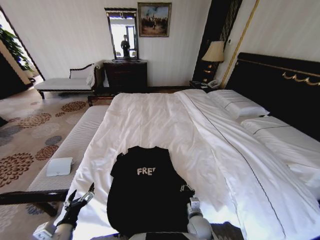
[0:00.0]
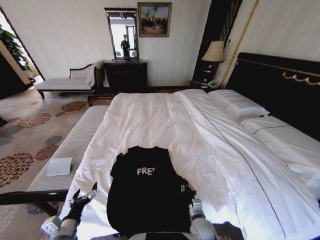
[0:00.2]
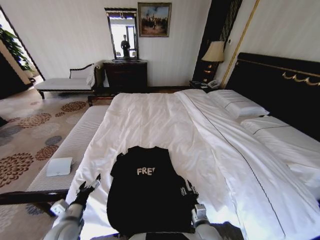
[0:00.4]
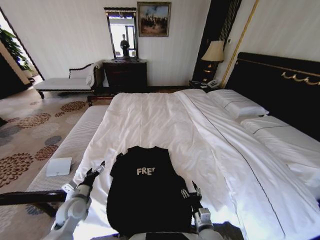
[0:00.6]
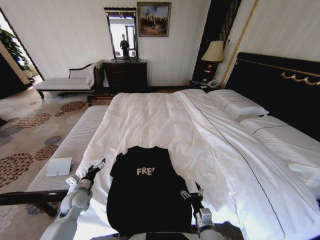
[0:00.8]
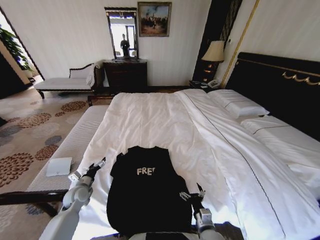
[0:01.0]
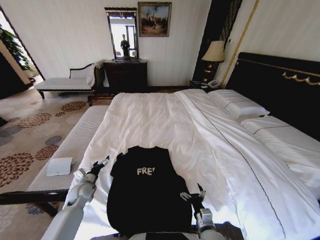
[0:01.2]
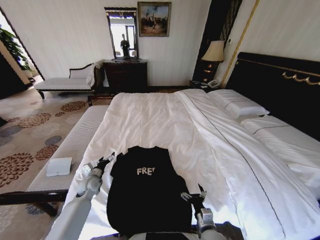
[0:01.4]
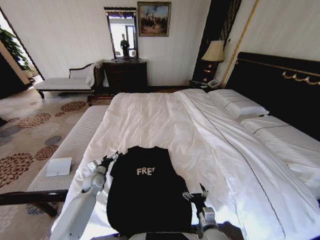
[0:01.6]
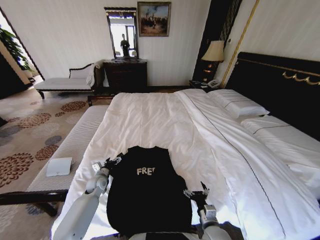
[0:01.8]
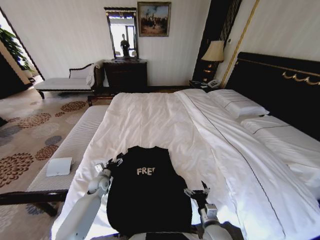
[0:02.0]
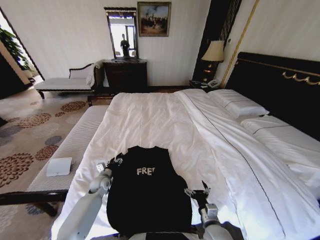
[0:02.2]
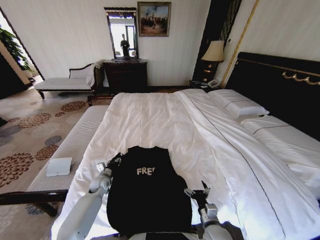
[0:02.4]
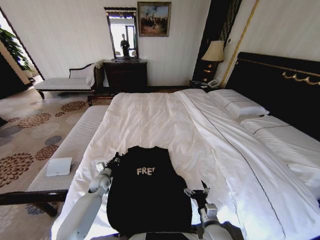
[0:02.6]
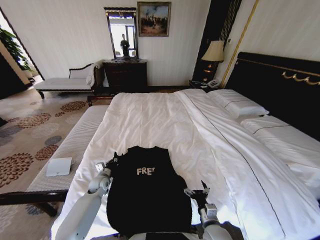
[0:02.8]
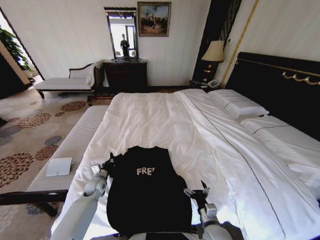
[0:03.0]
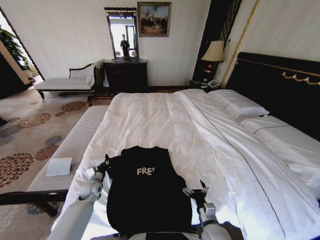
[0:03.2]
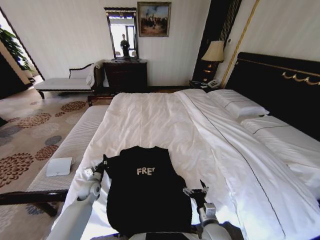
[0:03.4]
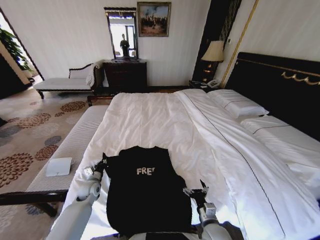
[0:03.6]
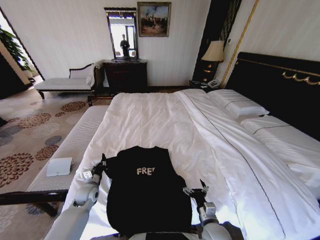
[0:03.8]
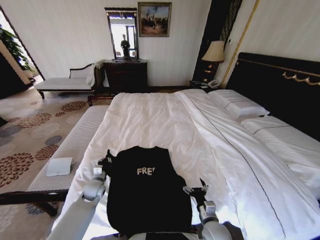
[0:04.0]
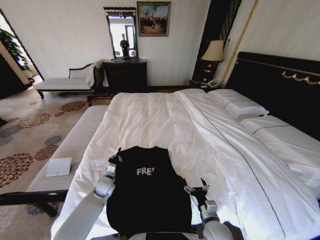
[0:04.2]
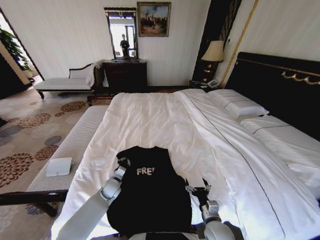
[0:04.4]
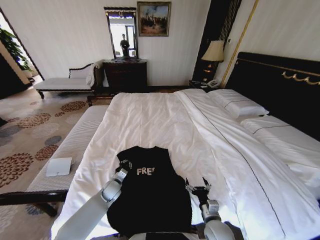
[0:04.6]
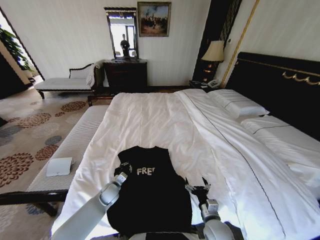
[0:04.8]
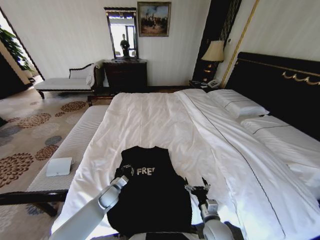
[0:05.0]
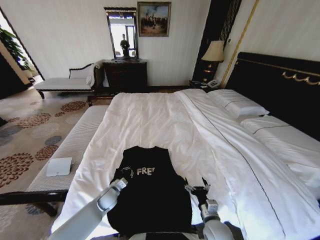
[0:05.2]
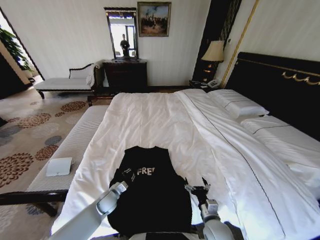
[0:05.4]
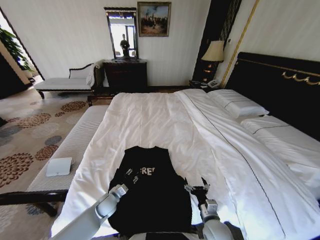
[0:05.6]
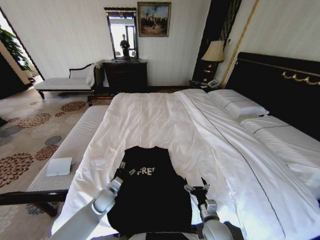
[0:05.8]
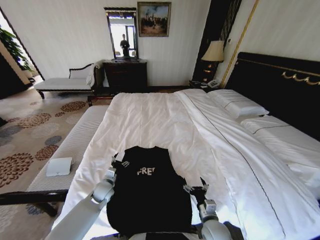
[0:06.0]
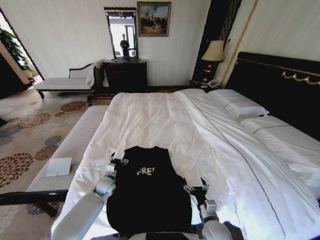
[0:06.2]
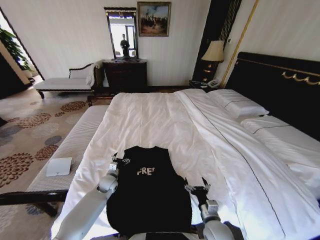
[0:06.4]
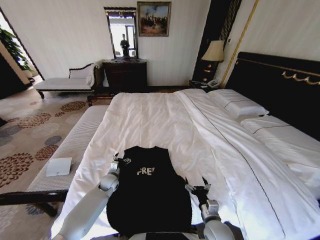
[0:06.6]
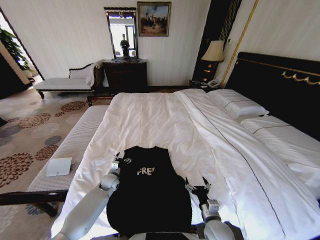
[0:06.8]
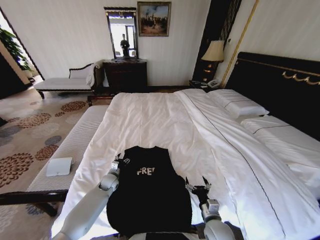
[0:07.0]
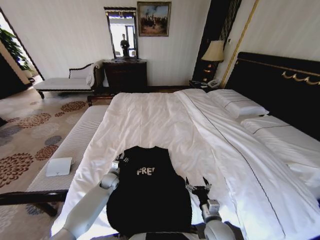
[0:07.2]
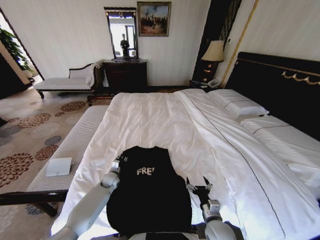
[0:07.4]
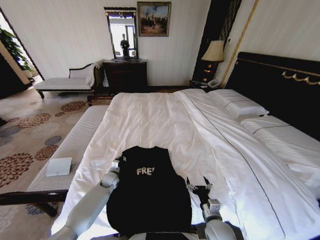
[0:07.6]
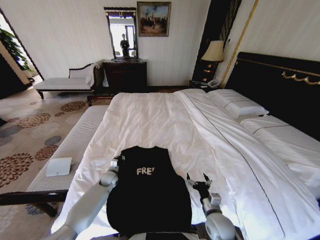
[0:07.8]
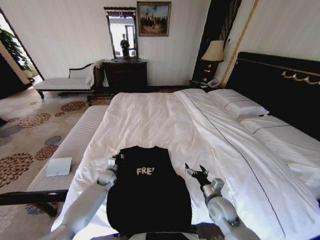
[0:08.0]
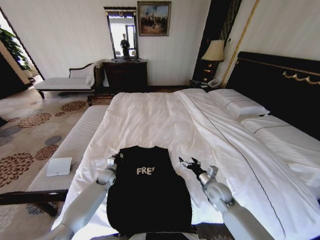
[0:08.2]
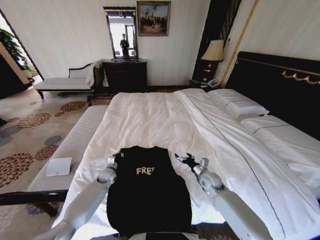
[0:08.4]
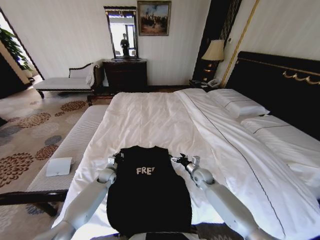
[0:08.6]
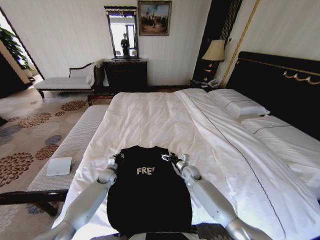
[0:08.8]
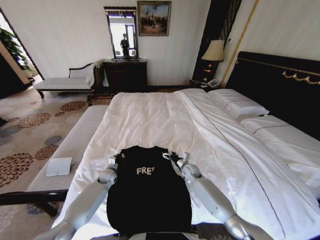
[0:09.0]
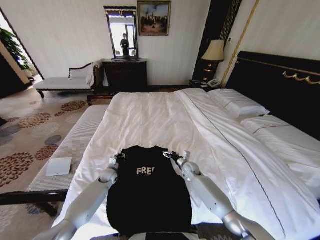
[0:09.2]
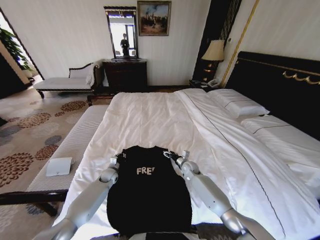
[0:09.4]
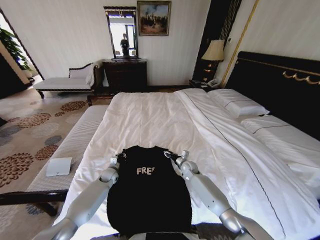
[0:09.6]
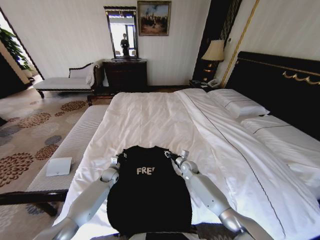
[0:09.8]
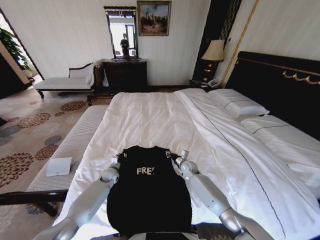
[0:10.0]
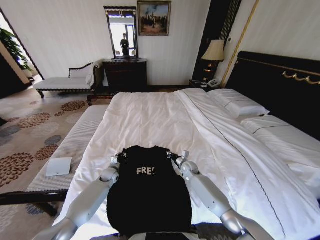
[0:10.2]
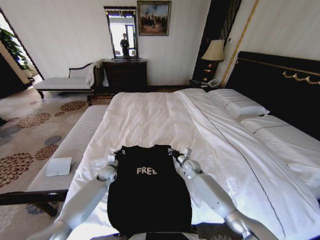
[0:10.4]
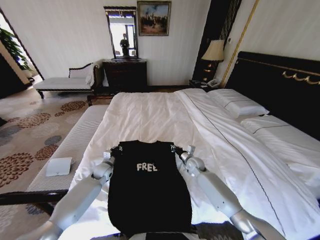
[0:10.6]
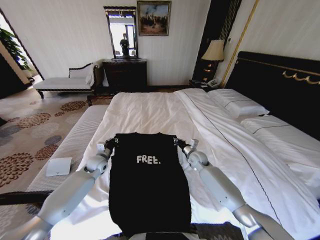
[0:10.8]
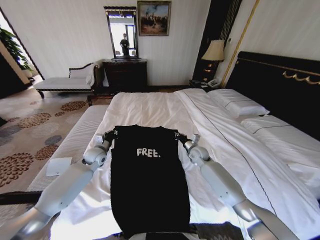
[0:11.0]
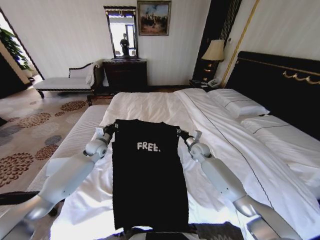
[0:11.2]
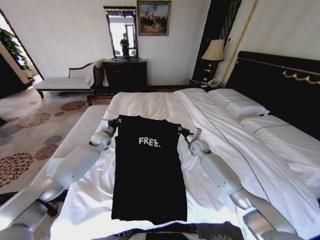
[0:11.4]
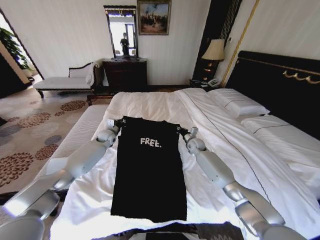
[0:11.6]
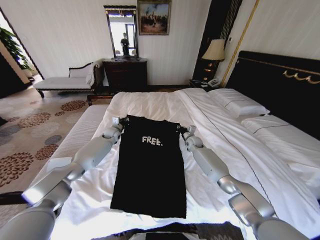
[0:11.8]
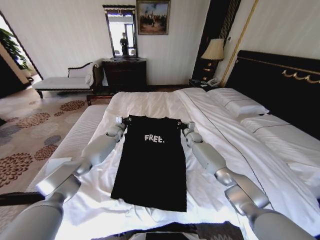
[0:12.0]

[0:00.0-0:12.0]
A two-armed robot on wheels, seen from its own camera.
Task of the whole recording: Fold the clothes on the bed.
0:00.0 to 0:01.6: The left gripper goes about 30 cm forward, while the right gripper travels backward by approximately 5 cm, and opens.
0:01.6 to 0:03.0: The left gripper closes up.
0:03.0 to 0:04.4: The left gripper shifts roughly 10 cm to the right.
0:04.4 to 0:06.0: The left gripper opens.
0:06.0 to 0:07.6: The left gripper shifts approximately 10 cm forward, and closes up.
0:07.6 to 0:09.0: The right gripper heads forward, covering roughly 25 cm.
0:09.0 to 0:10.4: The right gripper closes its fingers.
0:10.4 to 0:12.0: The two grippers go about 20 cm forward and upward.

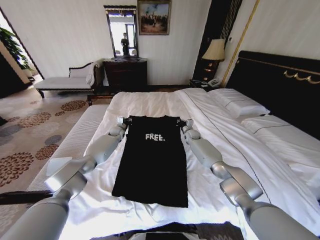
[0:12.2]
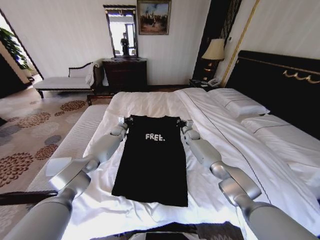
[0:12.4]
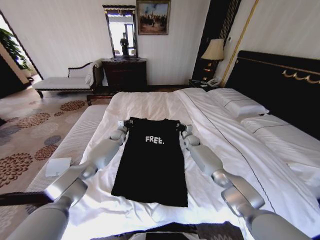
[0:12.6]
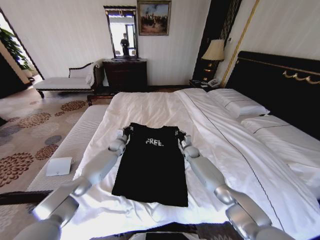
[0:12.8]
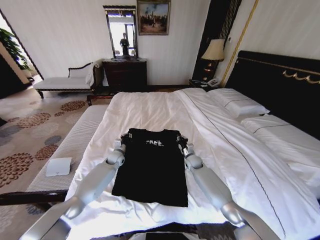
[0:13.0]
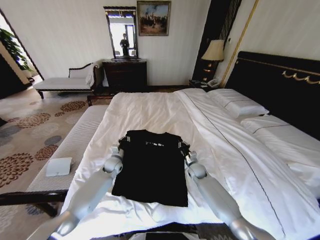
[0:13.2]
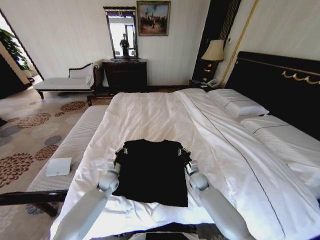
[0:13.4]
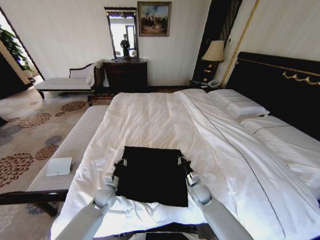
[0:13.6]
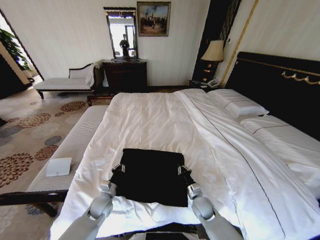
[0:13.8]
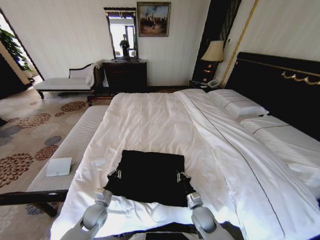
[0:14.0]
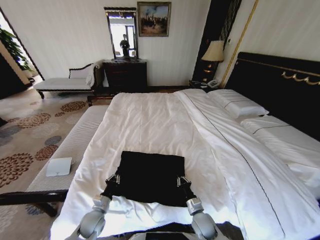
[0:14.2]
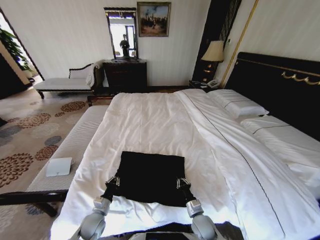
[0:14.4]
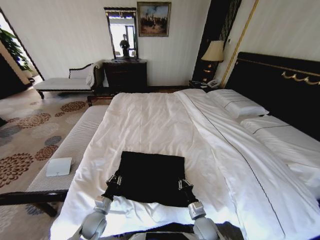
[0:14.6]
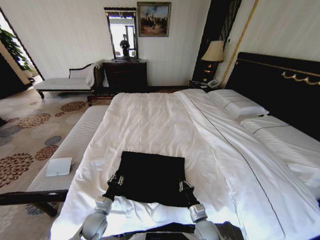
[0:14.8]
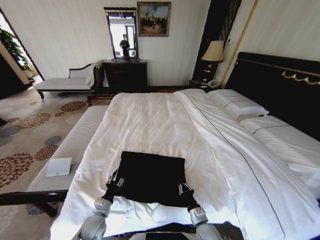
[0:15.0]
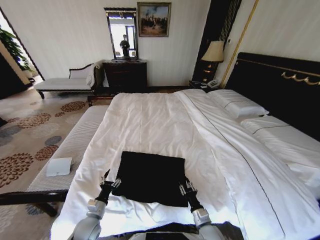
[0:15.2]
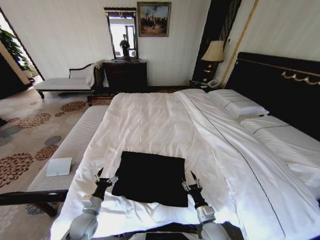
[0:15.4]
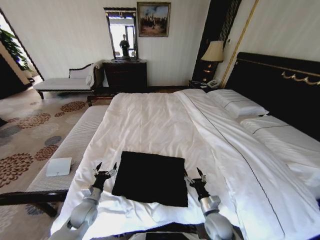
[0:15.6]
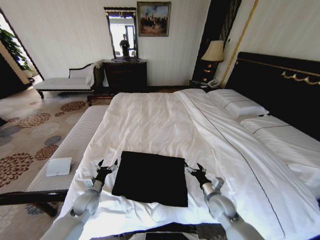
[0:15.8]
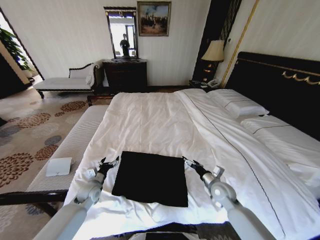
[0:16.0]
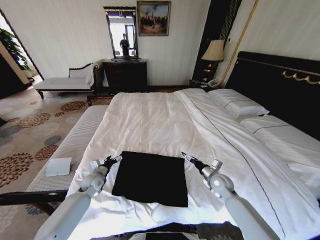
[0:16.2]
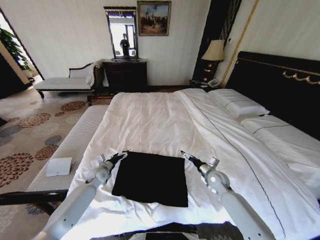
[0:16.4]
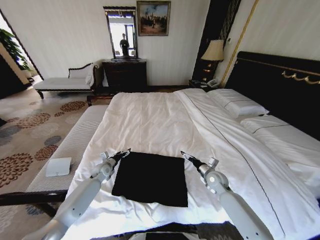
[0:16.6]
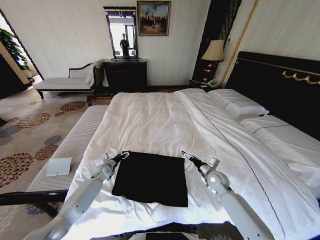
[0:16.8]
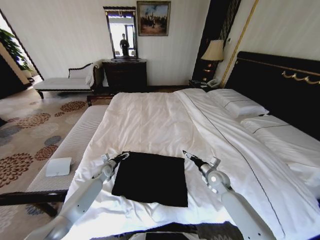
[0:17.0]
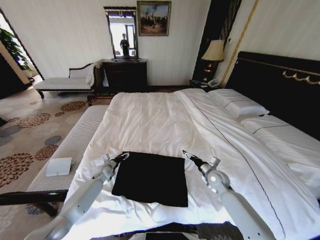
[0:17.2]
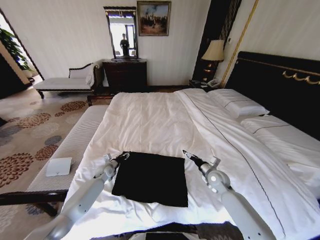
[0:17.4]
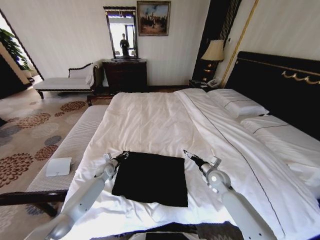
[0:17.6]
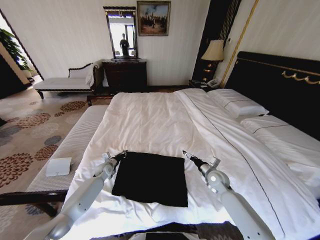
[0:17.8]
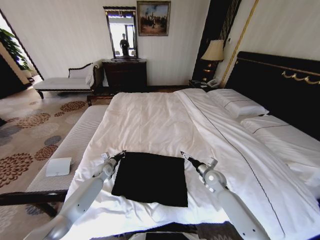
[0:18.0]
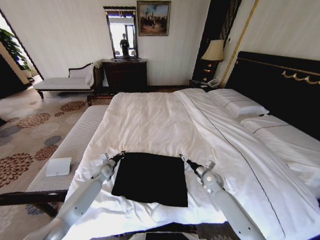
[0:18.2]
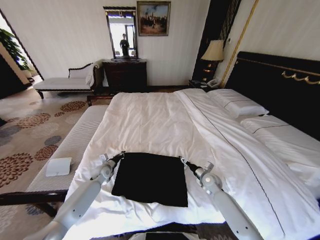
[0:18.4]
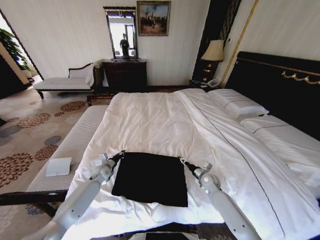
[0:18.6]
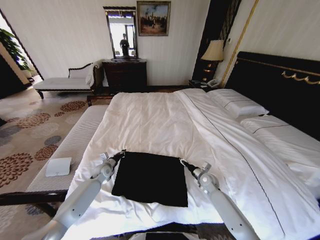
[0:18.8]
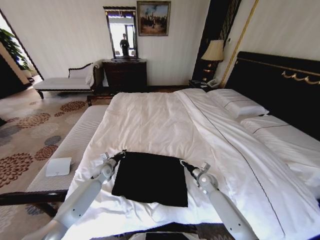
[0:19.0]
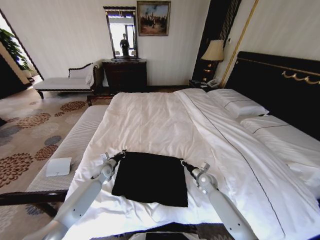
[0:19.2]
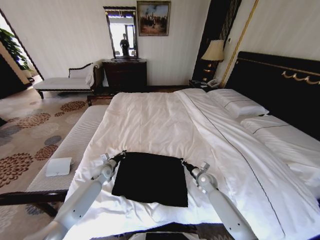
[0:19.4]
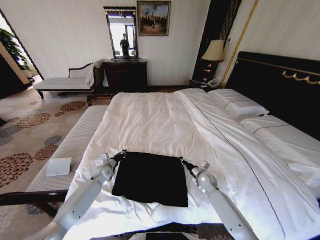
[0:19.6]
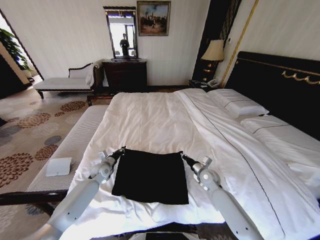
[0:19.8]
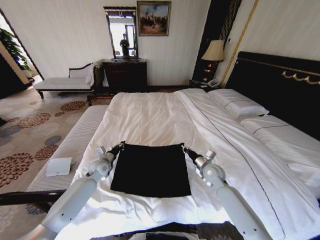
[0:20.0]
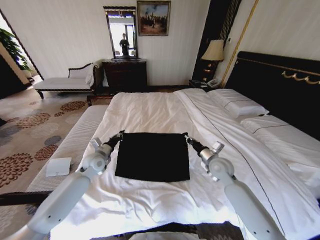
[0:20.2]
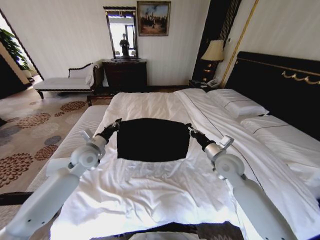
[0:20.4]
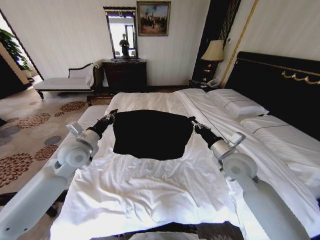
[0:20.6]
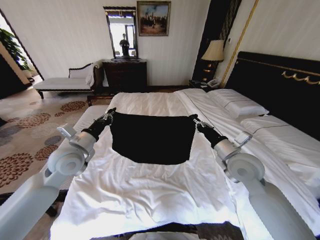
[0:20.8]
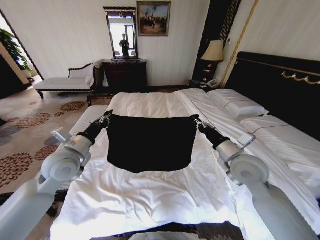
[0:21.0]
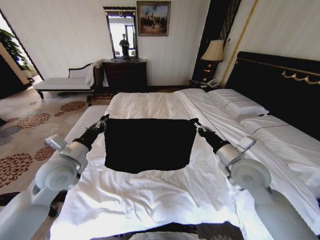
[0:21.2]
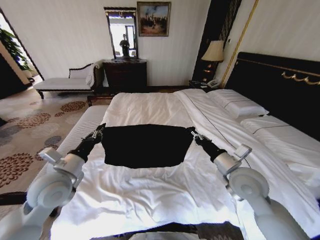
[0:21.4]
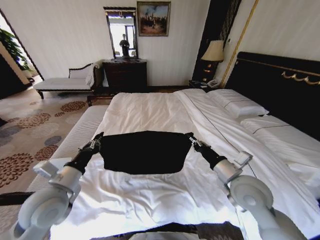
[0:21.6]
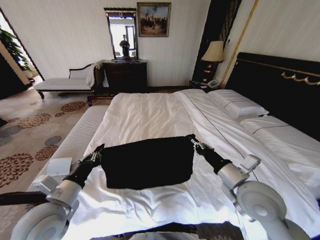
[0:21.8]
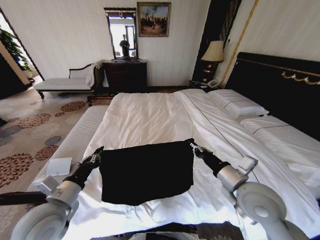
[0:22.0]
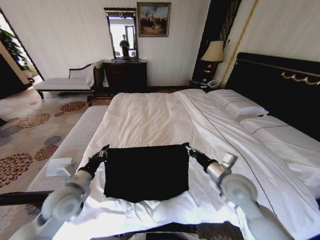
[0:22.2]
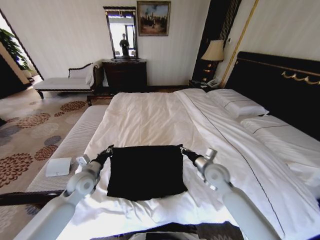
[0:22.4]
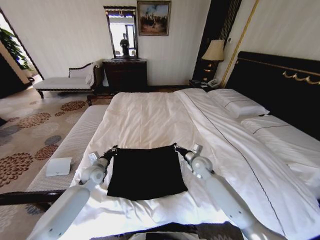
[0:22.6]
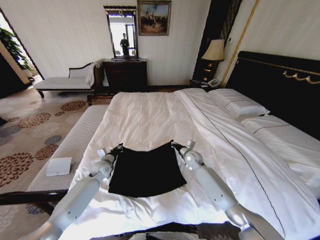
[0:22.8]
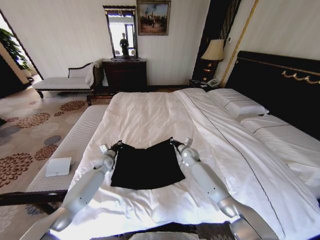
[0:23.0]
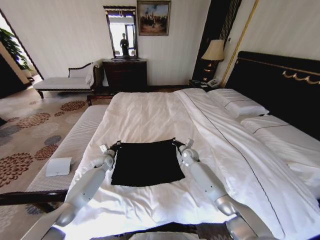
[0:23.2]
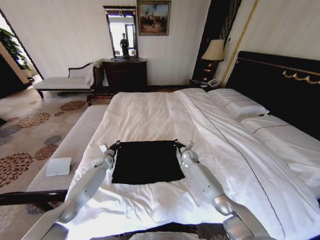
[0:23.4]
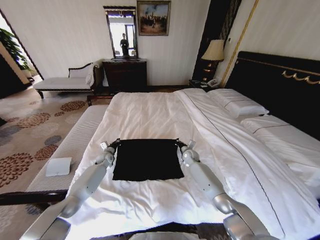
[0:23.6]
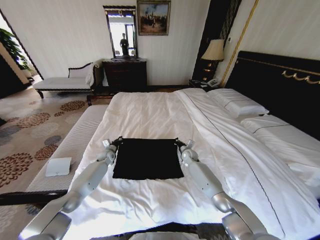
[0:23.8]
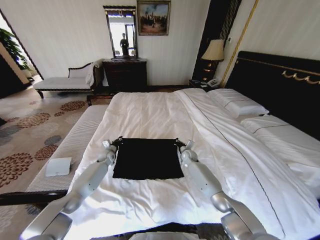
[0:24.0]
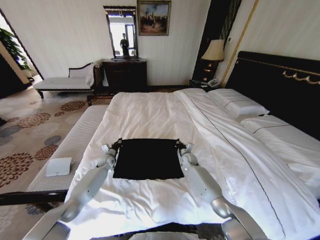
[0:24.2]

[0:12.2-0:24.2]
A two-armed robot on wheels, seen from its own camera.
Task of the whole recording: Fold the clothes on the bed.
0:12.2 to 0:13.8: The two grippers go about 35 cm backward.
0:13.8 to 0:15.2: Both grippers move backward, approximately 10 cm. The left gripper opens up.
0:15.2 to 0:16.6: The right gripper shifts about 25 cm forward, upward and to the right, and opens. Meanwhile the left gripper goes about 25 cm forward.
0:16.6 to 0:18.2: The left gripper closes its fingers.
0:18.2 to 0:19.8: The right gripper closes its fingers.
0:19.8 to 0:21.2: The left gripper is displaced upward and backward by approximately 30 cm. The right gripper shifts about 25 cm upward.
0:21.2 to 0:22.6: The grippers both shift downward and forward by approximately 20 cm.
0:22.6 to 0:24.2: The two grippers go some 15 cm forward and downward.
